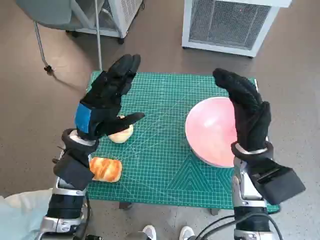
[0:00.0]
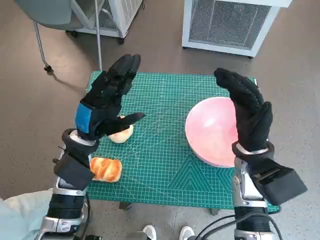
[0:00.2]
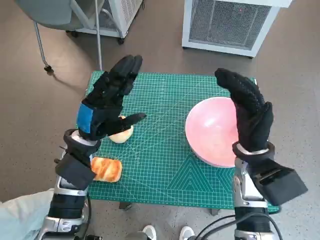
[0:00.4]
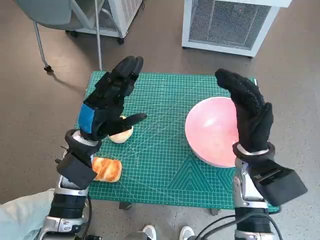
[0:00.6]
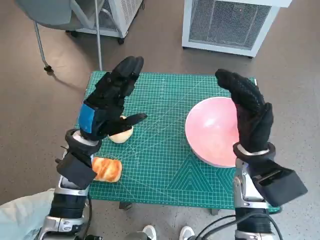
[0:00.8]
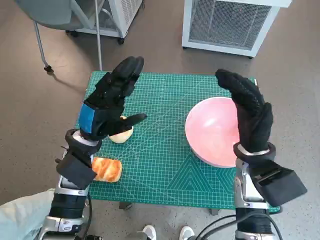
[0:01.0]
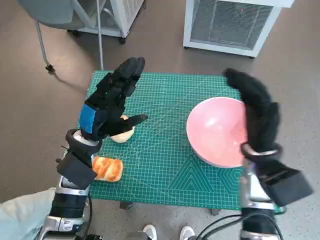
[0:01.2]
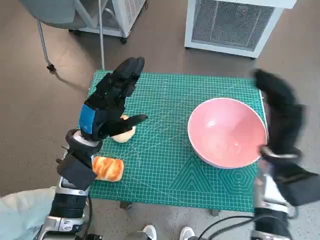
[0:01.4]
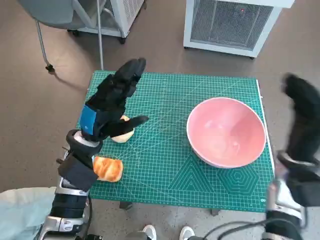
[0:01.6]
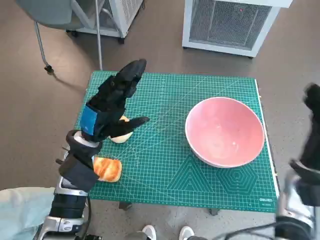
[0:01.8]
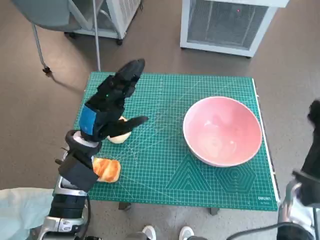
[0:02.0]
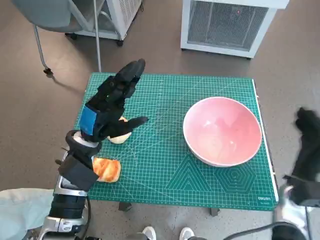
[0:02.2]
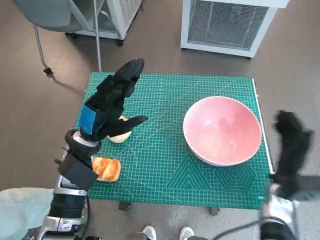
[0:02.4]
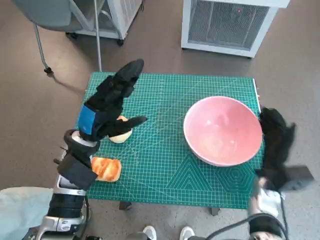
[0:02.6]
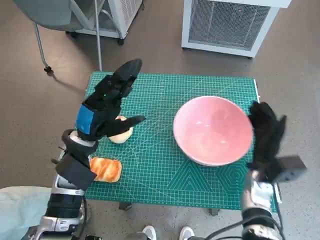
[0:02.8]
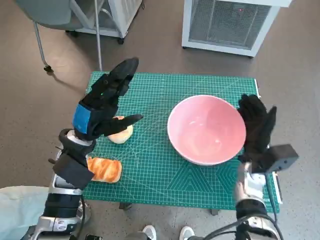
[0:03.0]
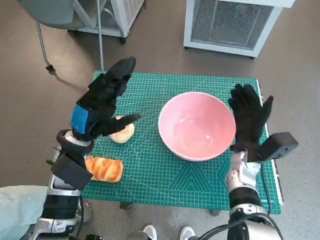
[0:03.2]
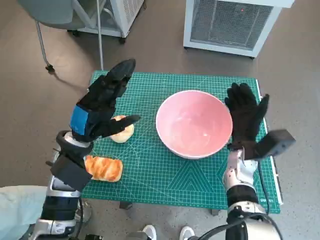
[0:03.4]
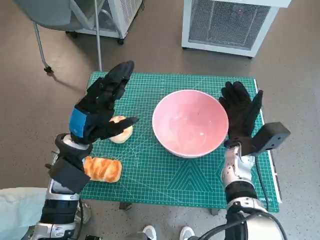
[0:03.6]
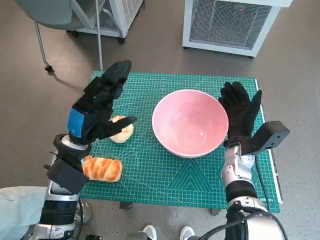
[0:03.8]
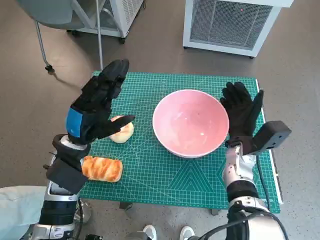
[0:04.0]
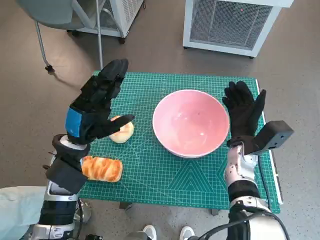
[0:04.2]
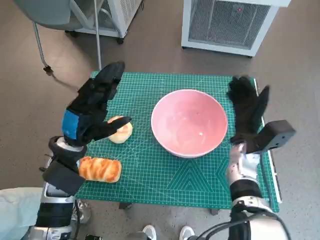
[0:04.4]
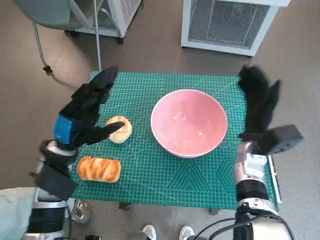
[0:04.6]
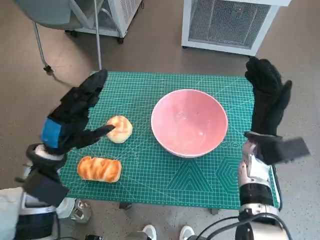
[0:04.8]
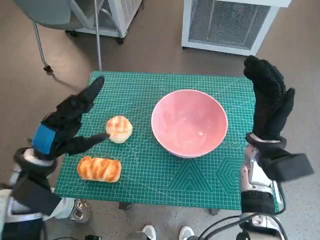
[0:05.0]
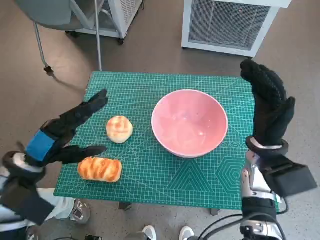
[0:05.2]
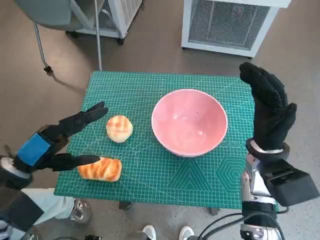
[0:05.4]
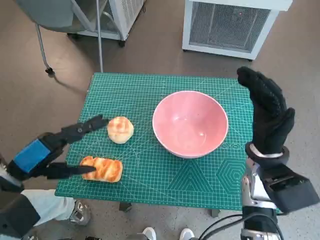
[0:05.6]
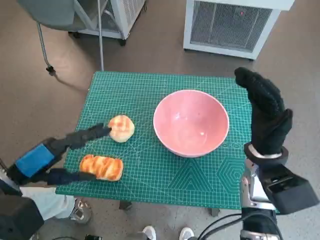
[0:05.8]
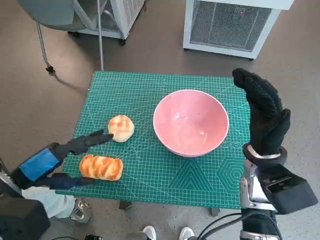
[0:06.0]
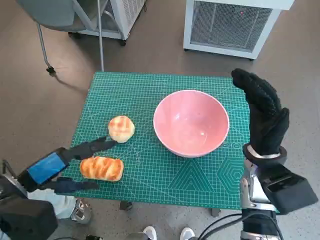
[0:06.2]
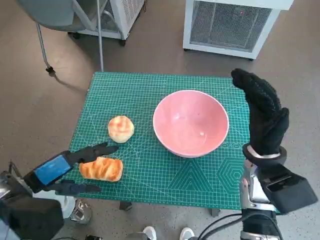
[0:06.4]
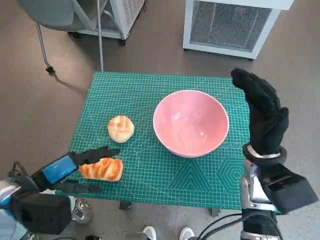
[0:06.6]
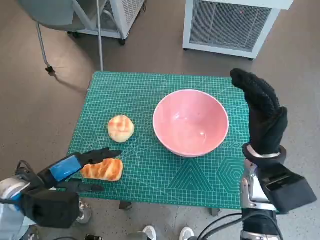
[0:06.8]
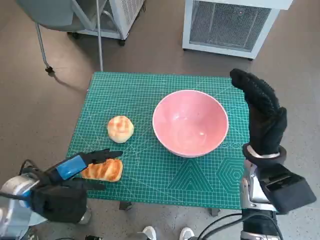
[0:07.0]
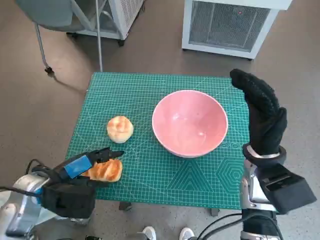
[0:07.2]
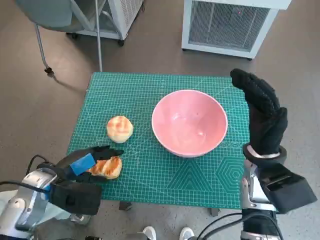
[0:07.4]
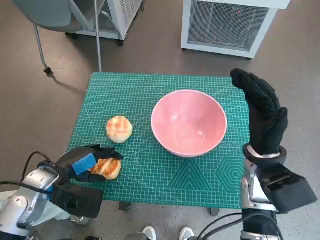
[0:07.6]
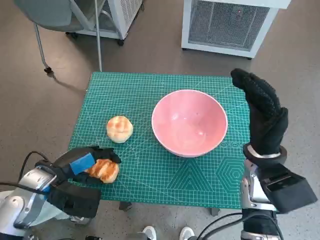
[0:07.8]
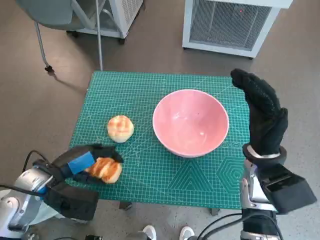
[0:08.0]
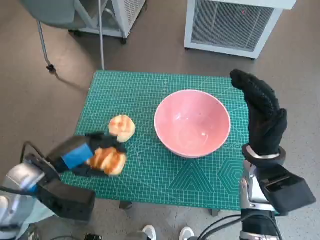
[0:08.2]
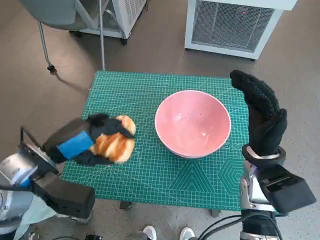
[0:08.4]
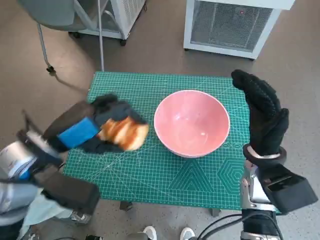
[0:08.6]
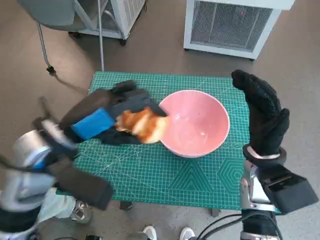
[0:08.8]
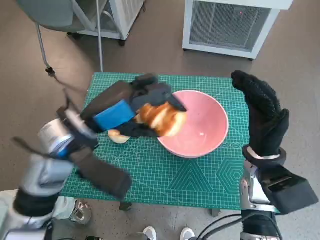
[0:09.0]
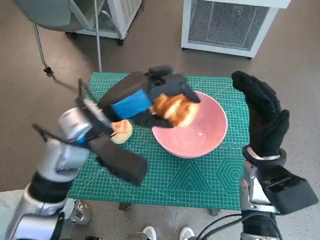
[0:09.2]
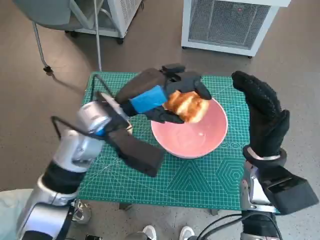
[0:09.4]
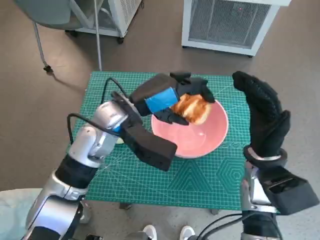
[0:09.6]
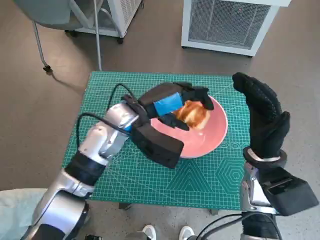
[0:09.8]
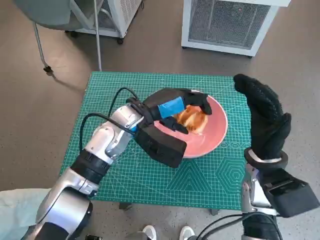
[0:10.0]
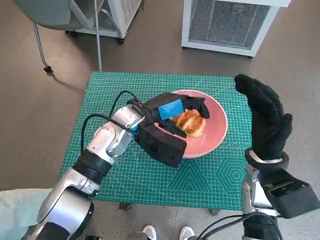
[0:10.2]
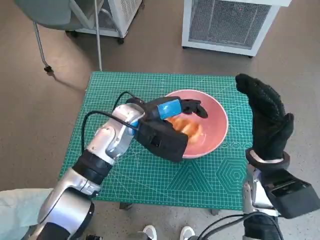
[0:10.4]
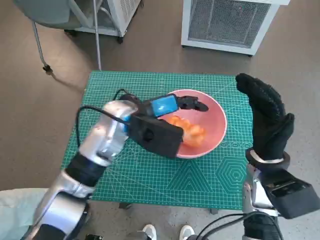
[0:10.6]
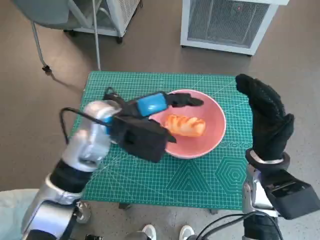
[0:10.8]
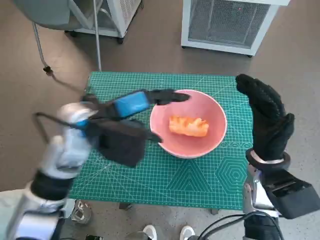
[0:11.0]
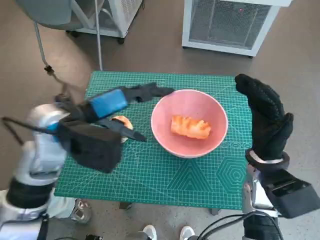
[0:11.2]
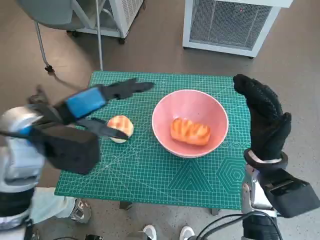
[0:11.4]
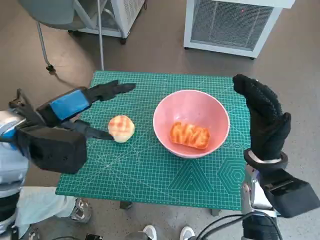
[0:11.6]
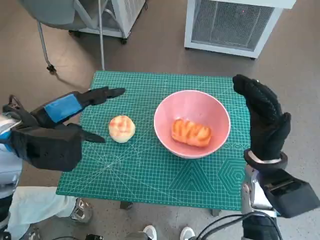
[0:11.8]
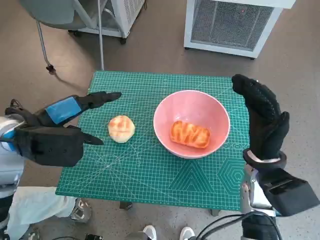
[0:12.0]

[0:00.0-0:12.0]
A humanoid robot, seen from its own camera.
Task of the whole recording: Push the bowl to the center of the table and put the bread into the bowl.
Step, 0:00.0 to 0:04.4: Move the pink bowl to the center of table with right hand.
Step, 0:04.6 to 0:07.6: Grasp the long bread with left hand.
Step, 0:07.8 to 0:10.6: Place the long bread in pink bowl with left hand.
0:01.6 to 0:03.0: The right hand shifts approximately 5 cm downward.
0:03.0 to 0:04.4: The right hand ends up roughly 5 cm from where it was.
0:04.4 to 0:06.0: The right hand heads upward and backward, covering roughly 10 cm. The left hand shifts about 10 cm backward and to the left.
0:06.0 to 0:07.6: The left hand goes some 10 cm downward.
0:07.6 to 0:09.0: The left hand heads upward and to the right, covering roughly 15 cm.
0:09.0 to 0:10.4: The left hand moves forward, to the right and downward, roughly 15 cm.
0:10.4 to 0:12.0: The left hand heads to the left, backward and upward, covering roughly 20 cm.

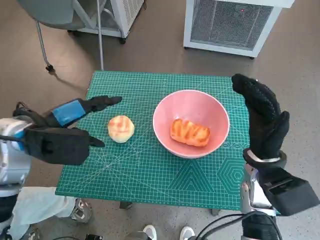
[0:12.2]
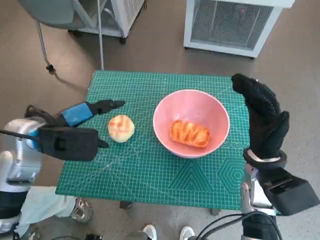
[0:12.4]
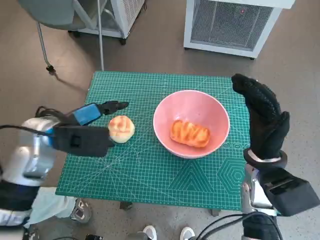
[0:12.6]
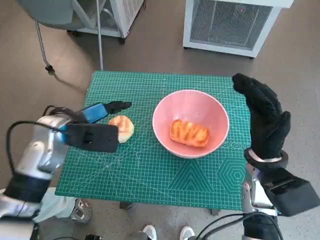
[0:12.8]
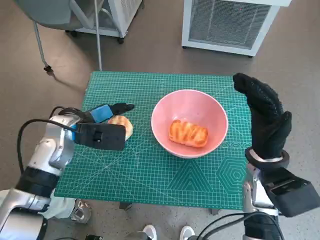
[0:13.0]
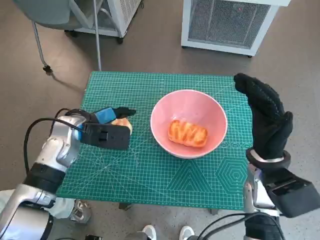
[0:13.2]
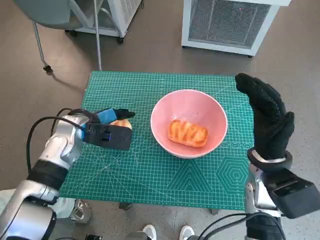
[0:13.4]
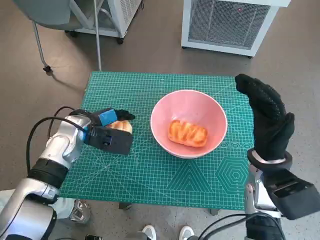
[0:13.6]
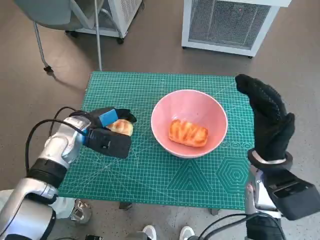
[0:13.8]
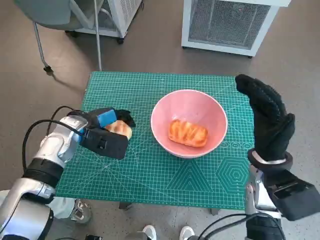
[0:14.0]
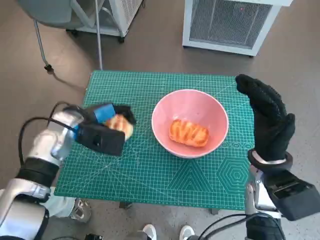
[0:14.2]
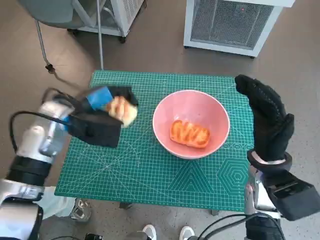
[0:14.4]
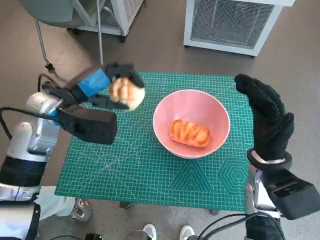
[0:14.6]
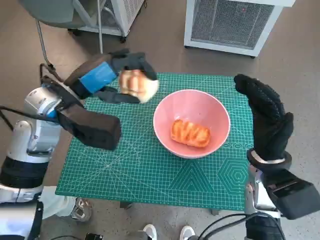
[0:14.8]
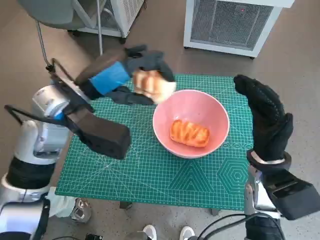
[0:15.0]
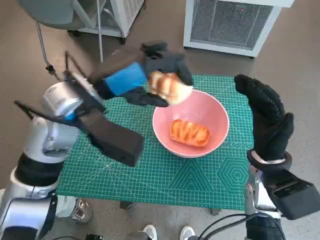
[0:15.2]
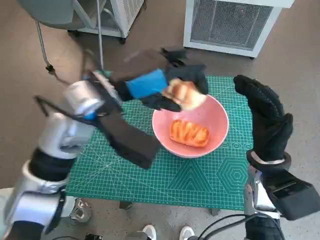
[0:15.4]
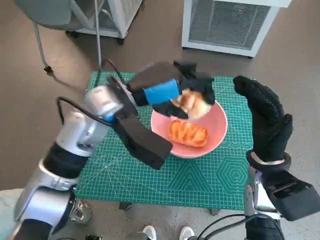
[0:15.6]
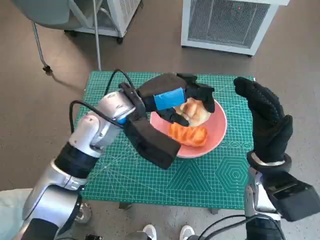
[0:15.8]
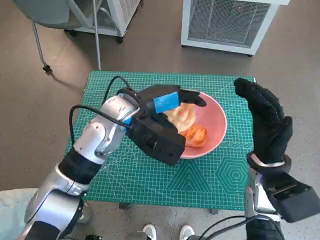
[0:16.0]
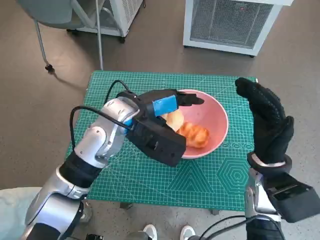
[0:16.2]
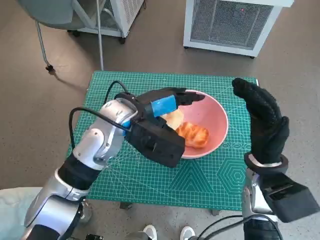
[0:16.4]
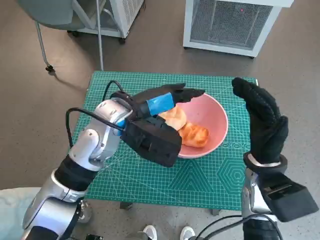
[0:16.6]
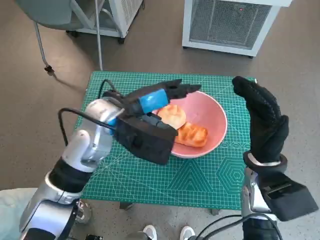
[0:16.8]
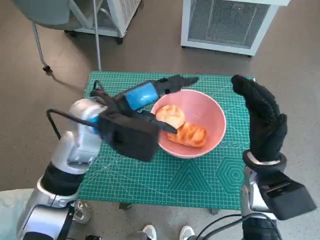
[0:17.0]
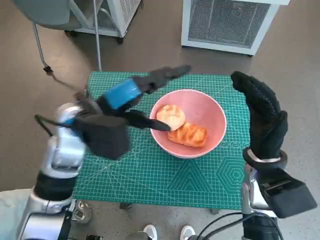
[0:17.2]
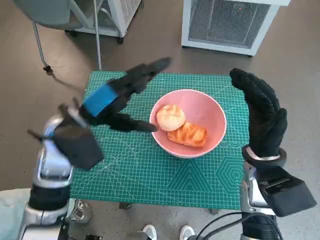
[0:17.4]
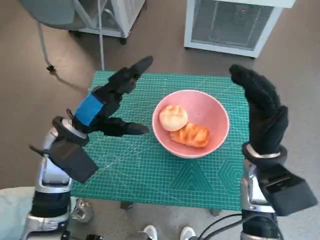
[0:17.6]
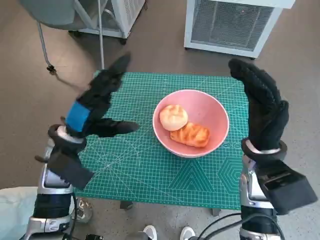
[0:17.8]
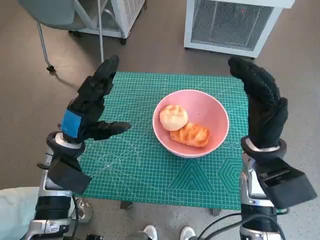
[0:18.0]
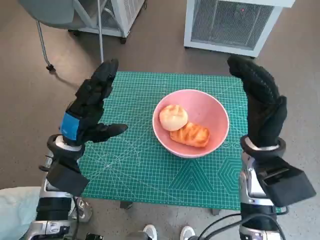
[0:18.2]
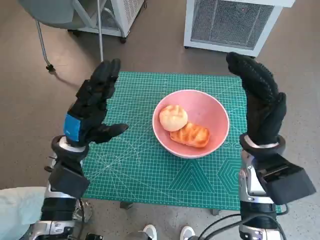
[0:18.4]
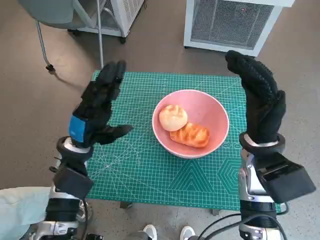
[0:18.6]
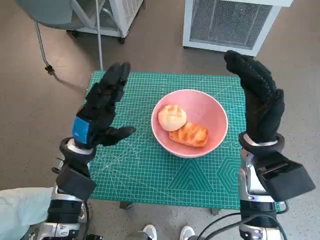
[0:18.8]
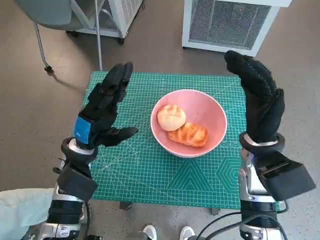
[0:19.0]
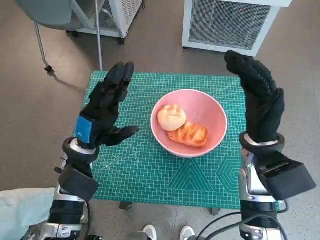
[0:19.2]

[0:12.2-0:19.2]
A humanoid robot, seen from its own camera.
Task of the whole recording: Push the bowl to the center of the table and put the bread into the bowl.
Step, 0:12.2 to 0:13.8: Grasp the round bread with left hand.
Step, 0:14.0 to 0:16.6: Place the round bread in pink bowl with left hand.
0:12.2 to 0:13.6: The left hand heads downward and forward, covering some 10 cm.
0:13.6 to 0:15.0: The left hand is displaced upward by about 15 cm.
0:15.0 to 0:16.4: The left hand shifts roughly 10 cm to the right.
0:16.4 to 0:17.8: The left hand heads to the left, covering roughly 10 cm.

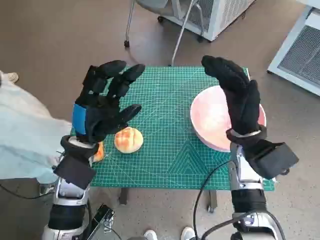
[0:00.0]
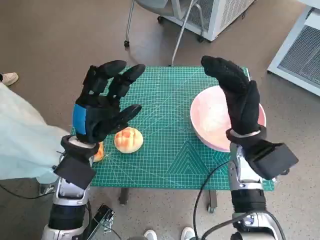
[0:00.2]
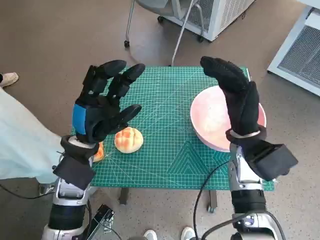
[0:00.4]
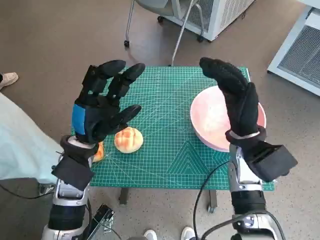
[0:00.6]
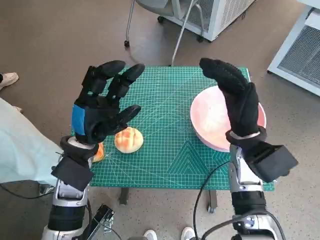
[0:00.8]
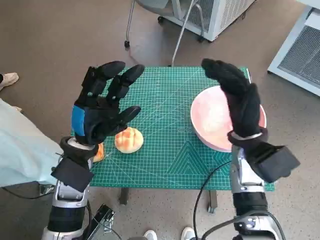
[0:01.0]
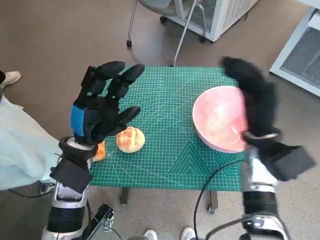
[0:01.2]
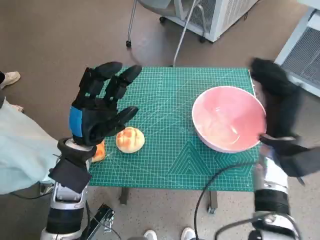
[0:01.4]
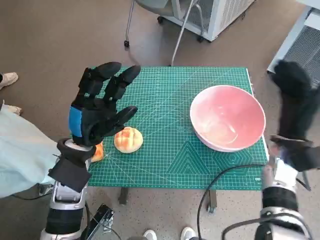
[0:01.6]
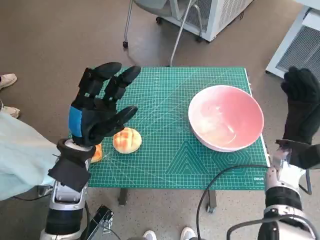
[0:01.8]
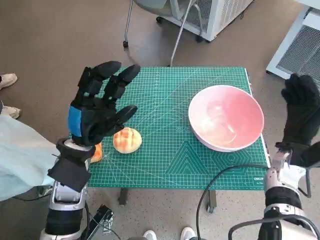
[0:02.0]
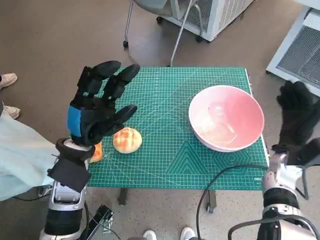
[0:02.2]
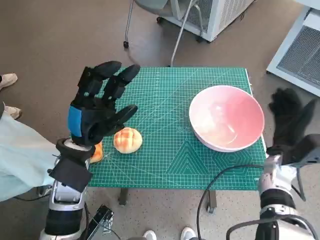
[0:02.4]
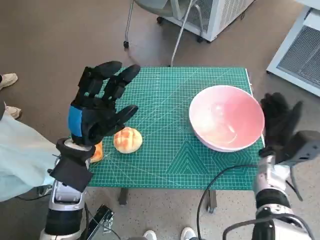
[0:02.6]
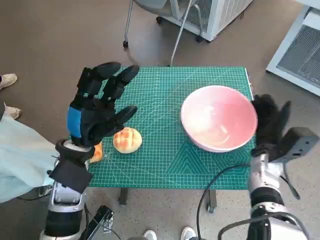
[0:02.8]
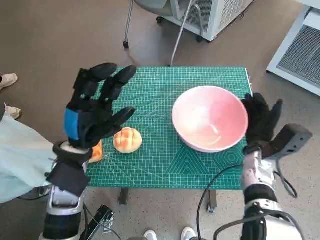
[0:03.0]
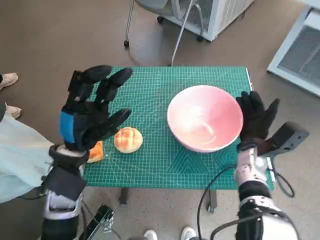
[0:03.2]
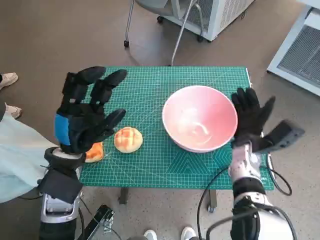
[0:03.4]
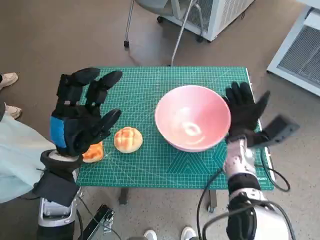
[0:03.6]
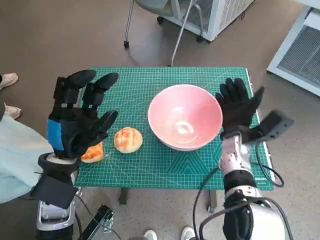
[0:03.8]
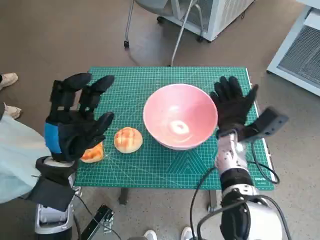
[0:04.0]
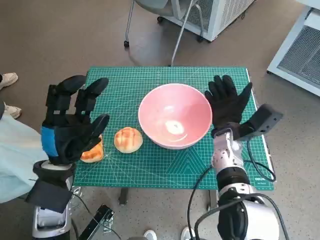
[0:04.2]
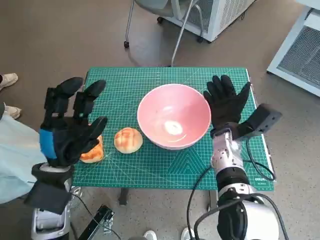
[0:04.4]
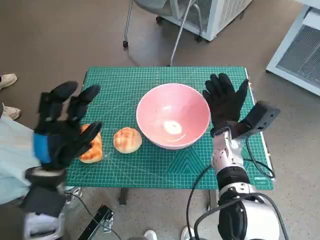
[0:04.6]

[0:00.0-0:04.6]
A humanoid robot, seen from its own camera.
Task of the whole recording: Push the bowl to the center of the table and put the bread into the bowl.
0:01.6 to 0:03.0: The right hand heads downward, covering roughly 5 cm.
0:03.0 to 0:04.6: The right hand heads to the left, covering roughly 10 cm, while the left hand shifts by approximately 5 cm.
